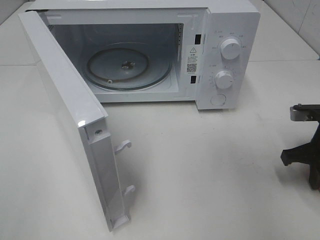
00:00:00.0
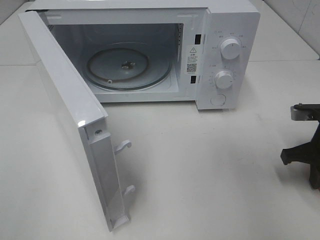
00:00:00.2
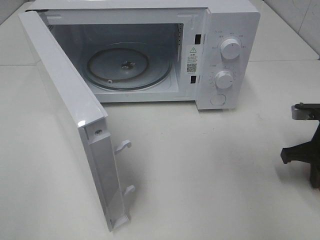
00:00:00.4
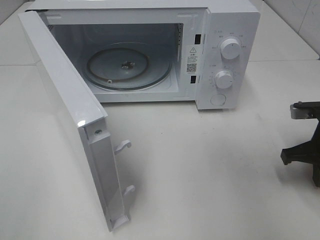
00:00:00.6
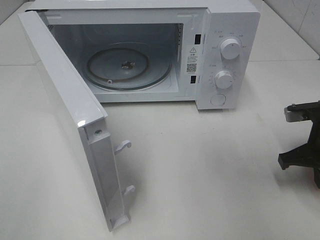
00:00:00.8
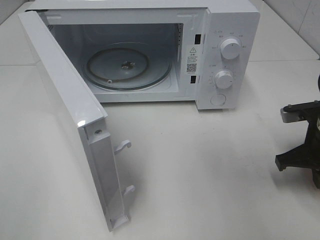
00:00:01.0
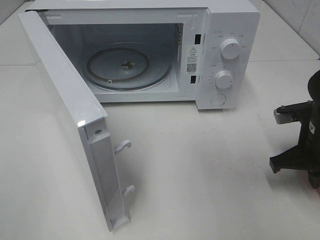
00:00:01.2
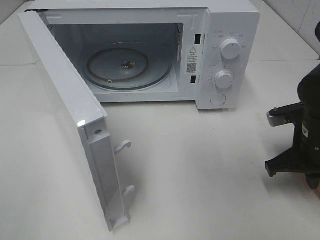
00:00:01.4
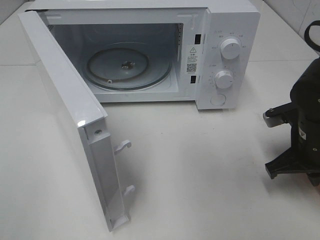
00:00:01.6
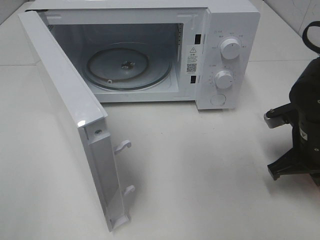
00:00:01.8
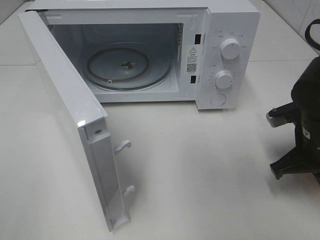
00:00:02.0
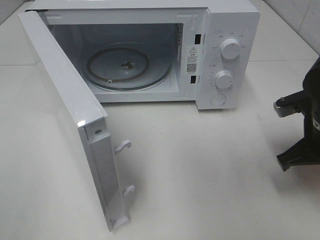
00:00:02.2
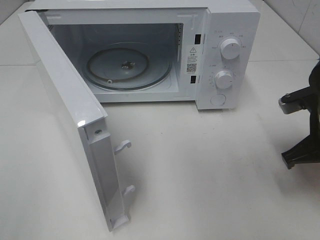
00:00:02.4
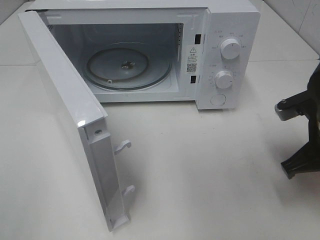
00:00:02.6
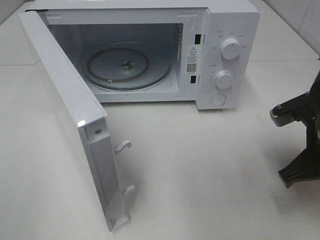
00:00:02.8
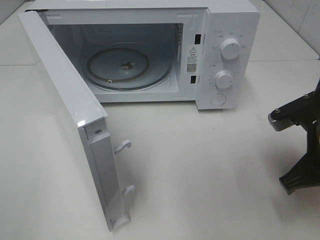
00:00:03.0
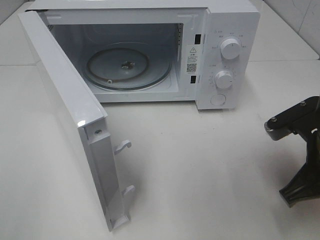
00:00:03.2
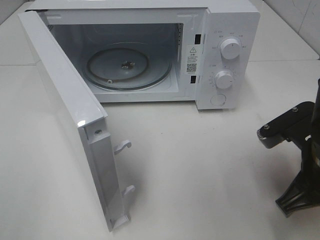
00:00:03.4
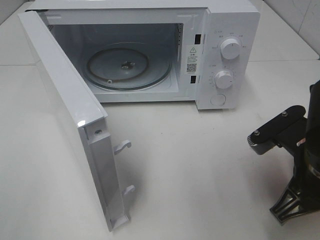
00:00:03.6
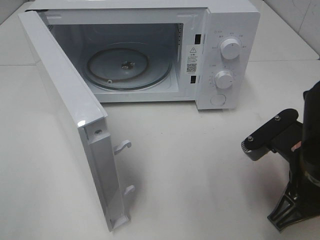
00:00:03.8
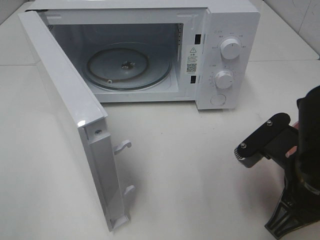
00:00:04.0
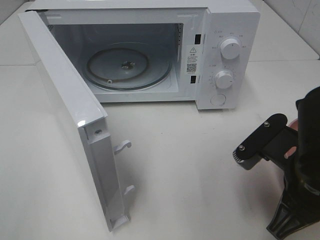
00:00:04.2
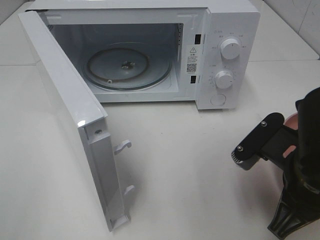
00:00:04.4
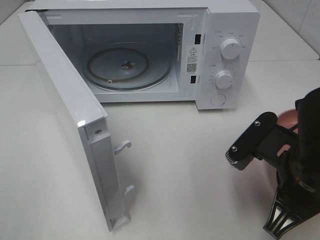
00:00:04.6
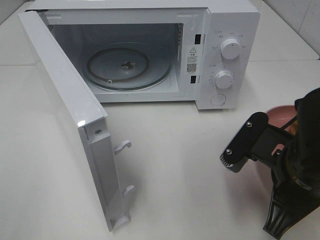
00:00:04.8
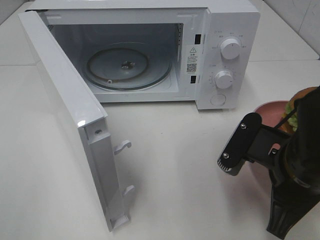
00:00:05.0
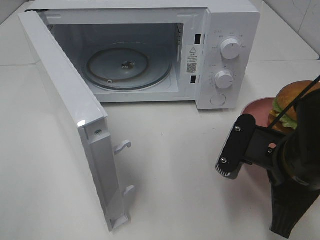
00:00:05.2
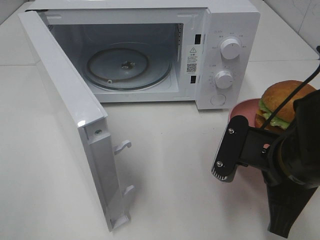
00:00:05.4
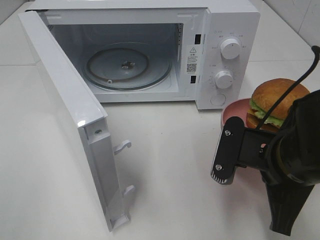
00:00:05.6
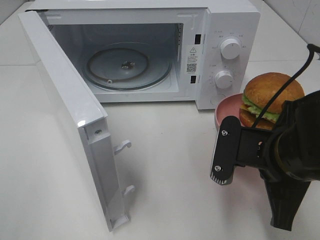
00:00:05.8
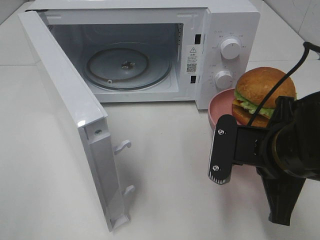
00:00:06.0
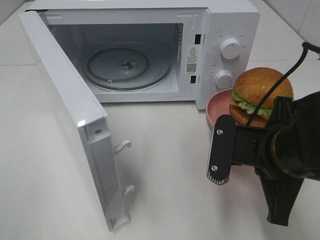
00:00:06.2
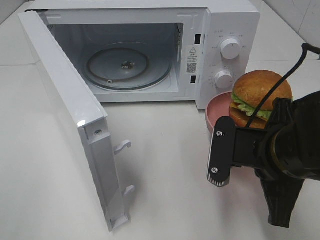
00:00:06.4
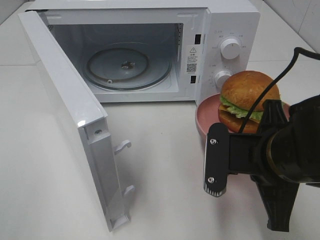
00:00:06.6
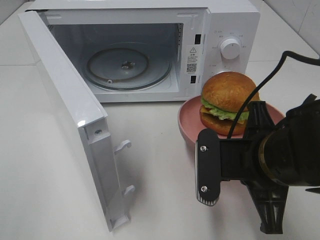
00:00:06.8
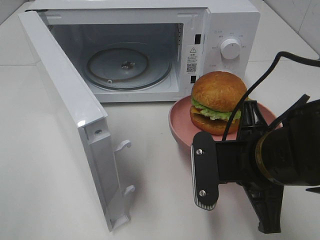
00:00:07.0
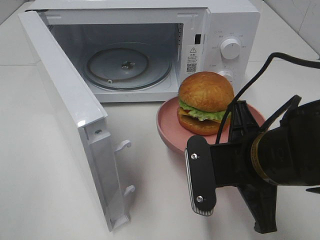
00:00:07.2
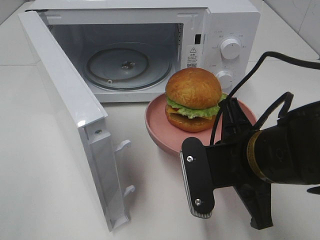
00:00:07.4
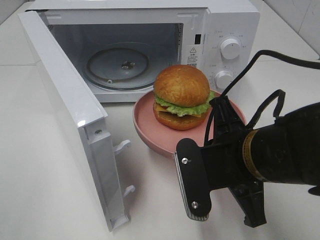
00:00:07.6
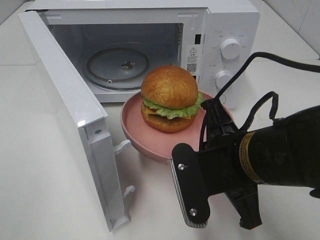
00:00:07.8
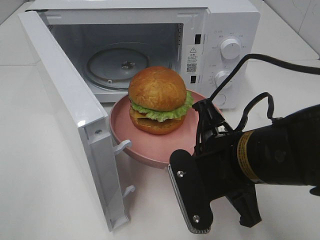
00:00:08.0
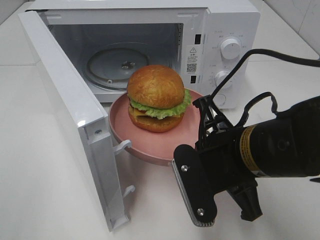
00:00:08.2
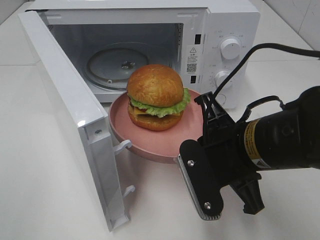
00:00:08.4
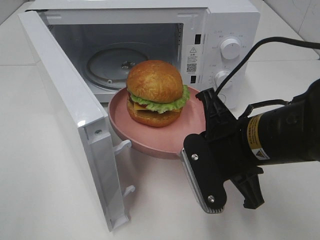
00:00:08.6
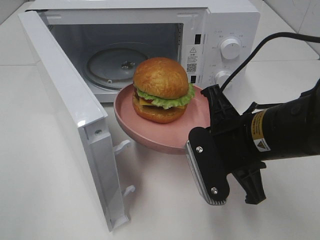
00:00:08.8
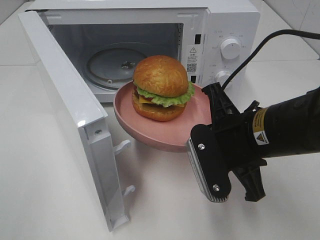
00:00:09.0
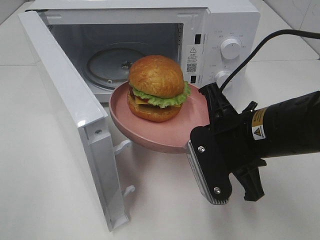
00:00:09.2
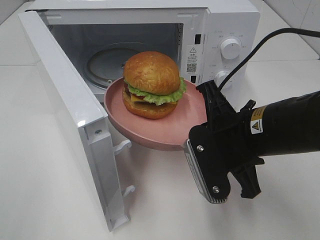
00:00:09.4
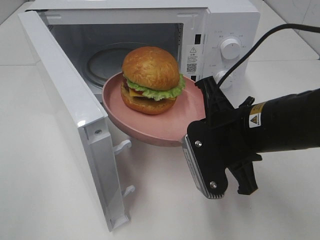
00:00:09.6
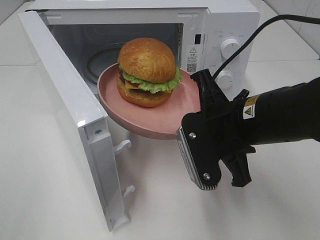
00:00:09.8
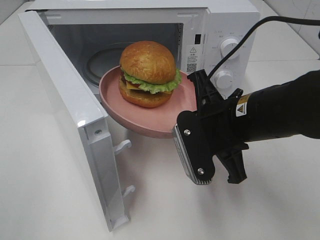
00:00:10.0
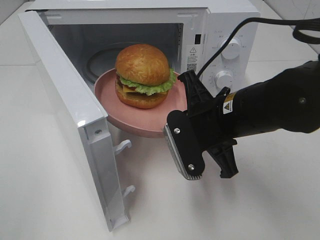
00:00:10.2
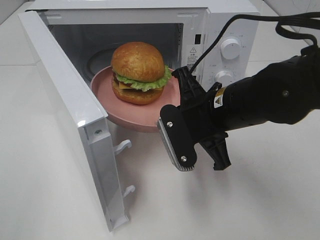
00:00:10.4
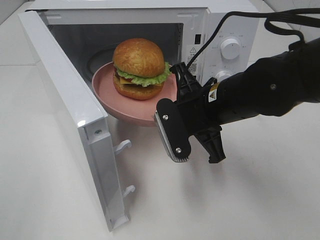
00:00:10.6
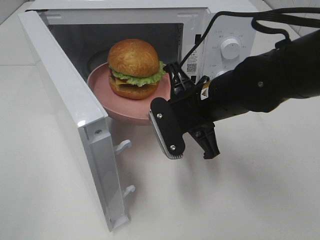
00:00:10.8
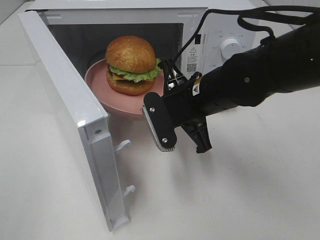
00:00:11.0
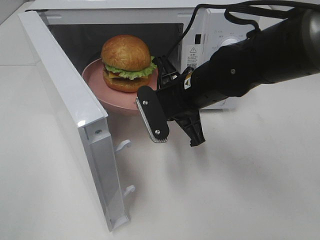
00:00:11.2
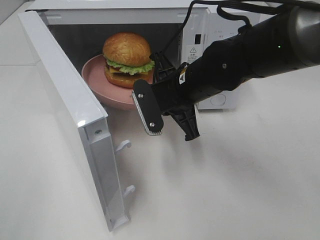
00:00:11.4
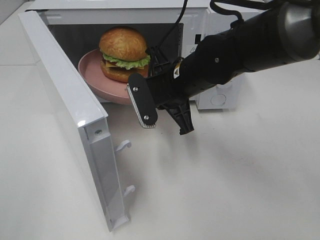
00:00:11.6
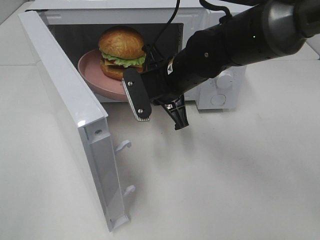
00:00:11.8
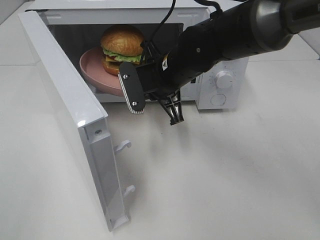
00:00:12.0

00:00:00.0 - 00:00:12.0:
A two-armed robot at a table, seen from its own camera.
Task of the whole recording: Heat the burger.
00:00:00.0 - 00:00:01.6: The right gripper shifts about 5 cm to the left.
00:00:01.6 - 00:00:03.0: The right gripper moves backward, approximately 5 cm.
00:00:03.0 - 00:00:04.4: The right gripper goes some 5 cm to the left.
00:00:07.6 - 00:00:09.0: There are only small adjustments of the grippers.
00:00:09.0 - 00:00:10.4: The right gripper ends up approximately 5 cm from where it was.
00:00:10.4 - 00:00:12.0: The right gripper goes some 10 cm forward and to the left.

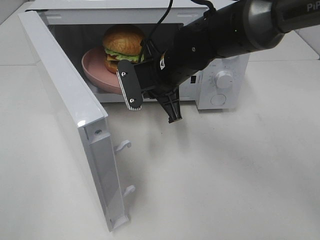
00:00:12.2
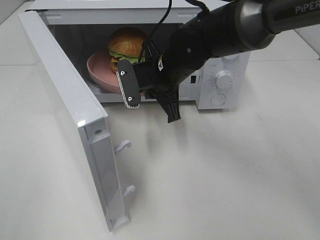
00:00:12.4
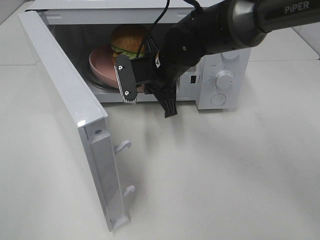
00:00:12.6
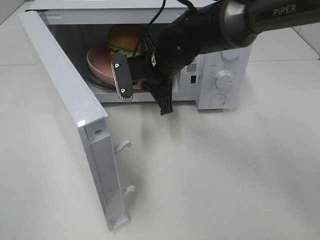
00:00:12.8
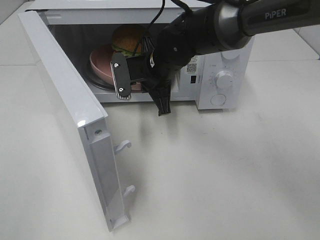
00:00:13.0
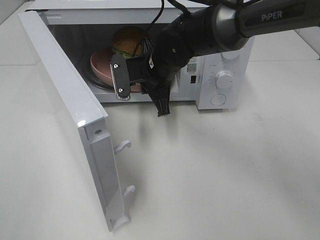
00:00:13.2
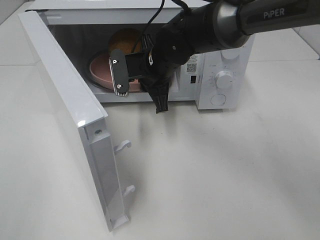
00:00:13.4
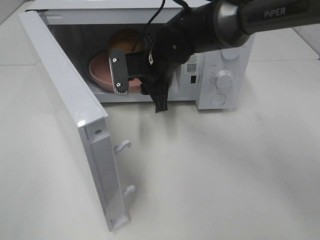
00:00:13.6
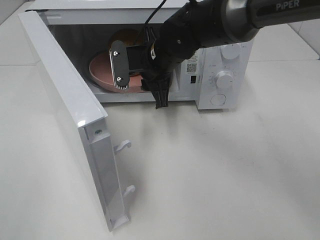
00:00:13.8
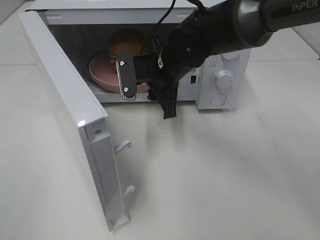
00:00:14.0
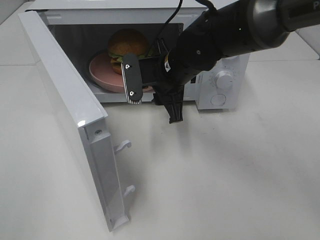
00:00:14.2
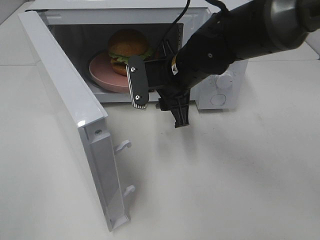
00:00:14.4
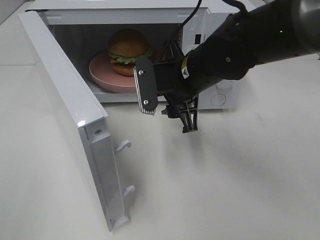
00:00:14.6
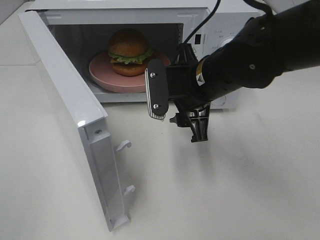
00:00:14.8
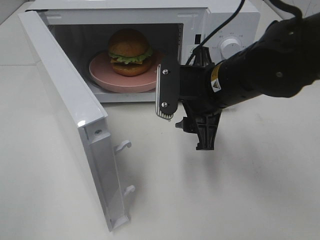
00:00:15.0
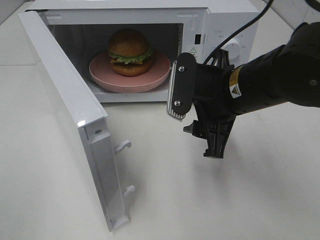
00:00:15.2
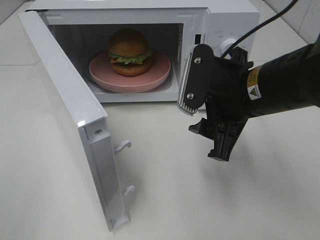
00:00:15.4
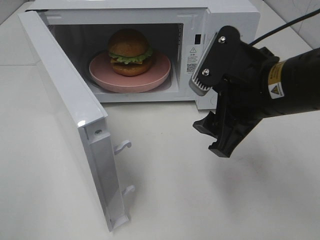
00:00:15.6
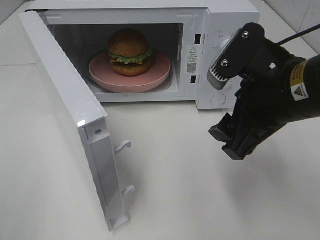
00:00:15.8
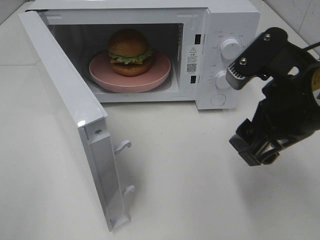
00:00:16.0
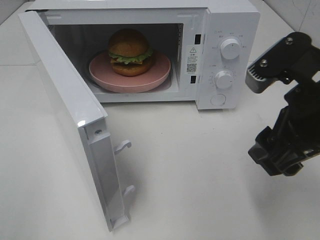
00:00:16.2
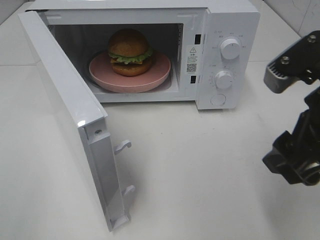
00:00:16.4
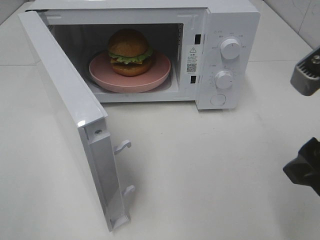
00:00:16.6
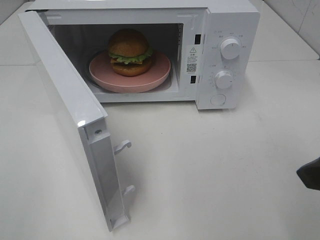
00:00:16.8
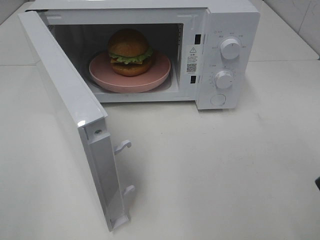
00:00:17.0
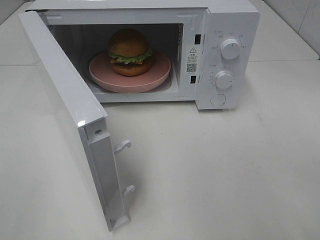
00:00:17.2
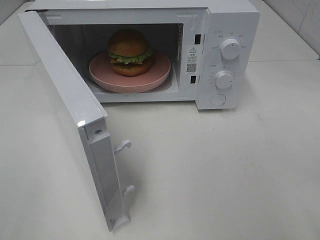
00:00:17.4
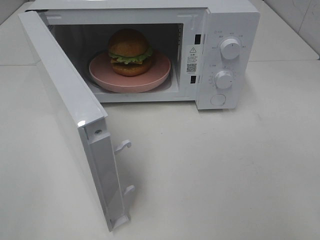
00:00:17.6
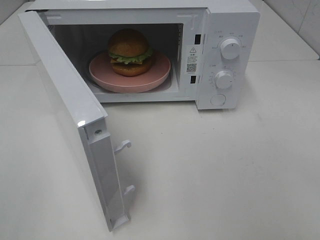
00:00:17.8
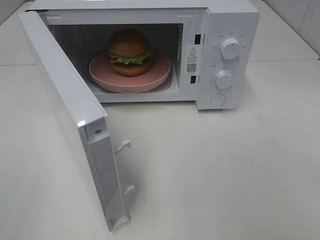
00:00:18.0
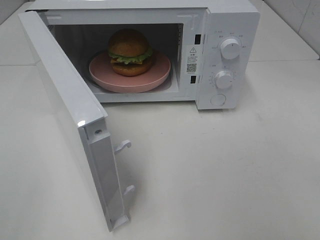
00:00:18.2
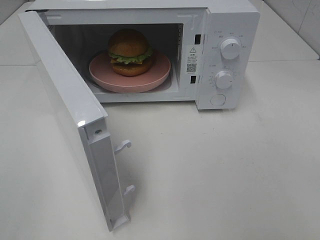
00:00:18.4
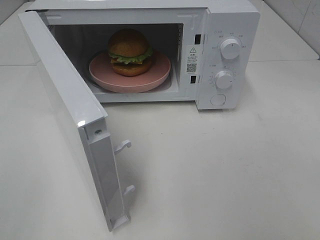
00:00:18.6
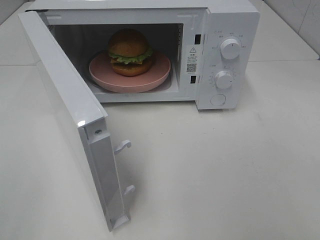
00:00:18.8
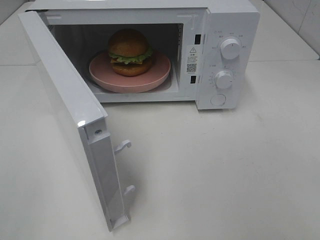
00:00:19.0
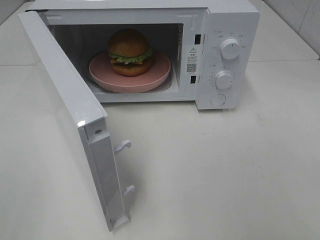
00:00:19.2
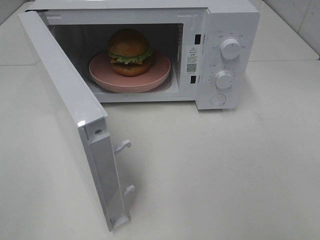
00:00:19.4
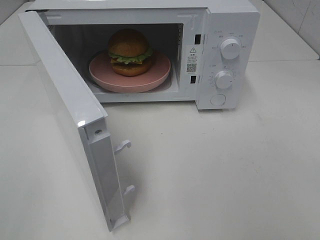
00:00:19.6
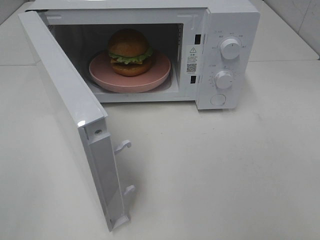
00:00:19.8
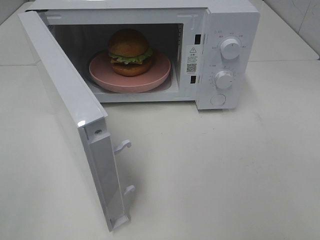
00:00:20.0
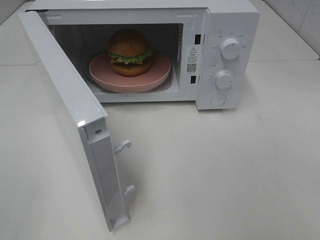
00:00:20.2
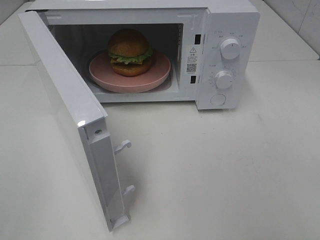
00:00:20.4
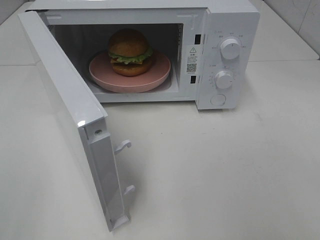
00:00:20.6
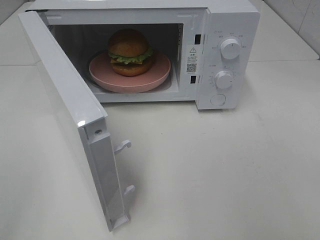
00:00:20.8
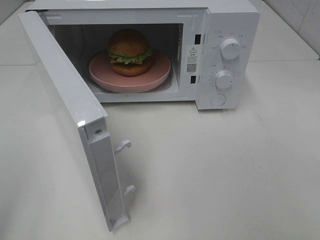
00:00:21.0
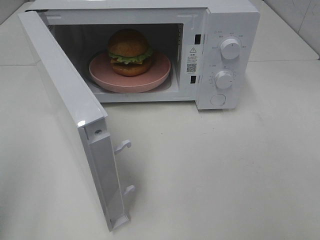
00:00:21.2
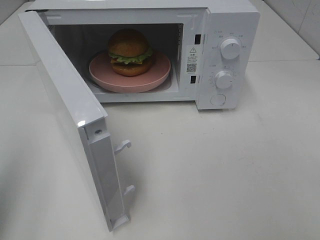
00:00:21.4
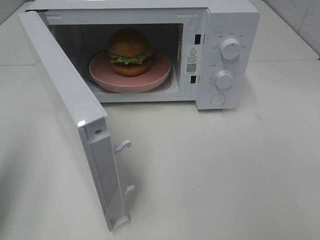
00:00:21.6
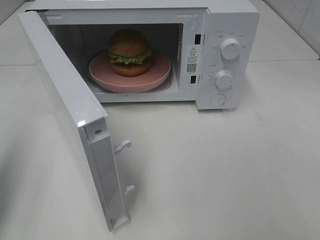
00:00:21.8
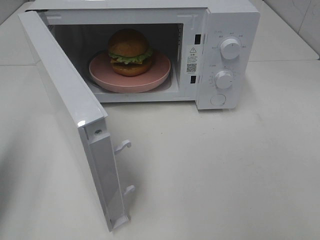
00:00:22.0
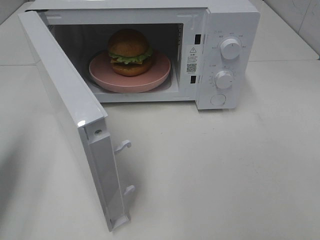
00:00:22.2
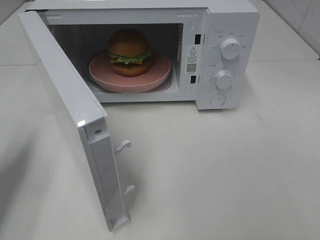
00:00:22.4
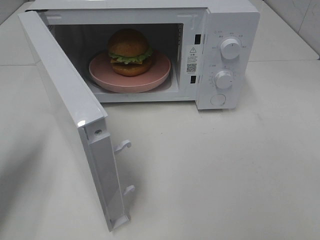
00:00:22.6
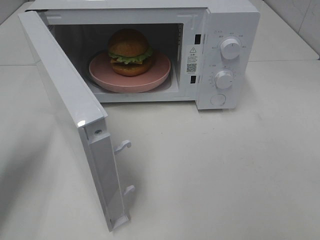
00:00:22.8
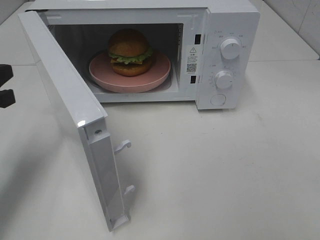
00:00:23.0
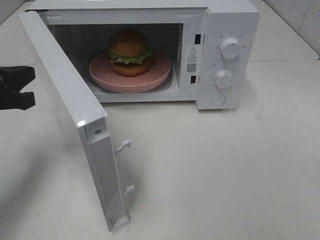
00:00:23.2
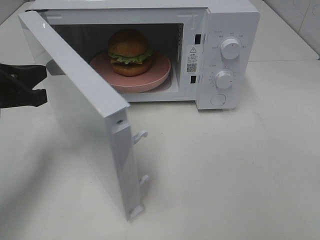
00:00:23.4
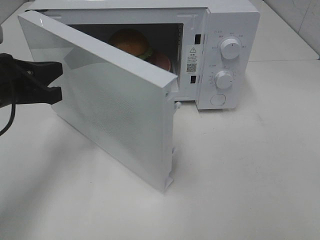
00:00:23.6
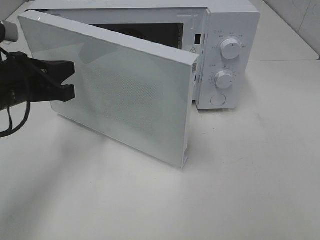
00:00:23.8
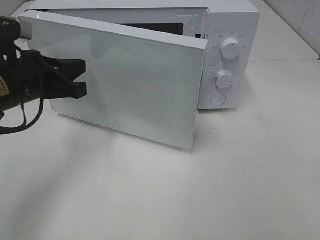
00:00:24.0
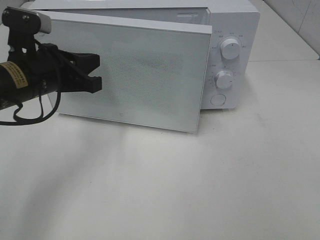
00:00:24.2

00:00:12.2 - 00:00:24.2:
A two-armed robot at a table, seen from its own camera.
Task of the whole recording: Heat the burger.
00:00:12.2 - 00:00:13.8: The right gripper opens its fingers.
00:00:13.8 - 00:00:15.2: The right gripper goes roughly 15 cm backward and to the right.
00:00:15.2 - 00:00:16.6: The right gripper is displaced backward, to the right and upward by roughly 15 cm.
00:00:16.6 - 00:00:18.2: The right gripper is displaced backward and to the right by approximately 15 cm.
00:00:18.2 - 00:00:19.8: Neither gripper changes place.
00:00:21.2 - 00:00:22.6: The left gripper travels forward and downward by approximately 20 cm.
00:00:22.6 - 00:00:24.2: The left gripper shifts some 15 cm to the right and forward.
